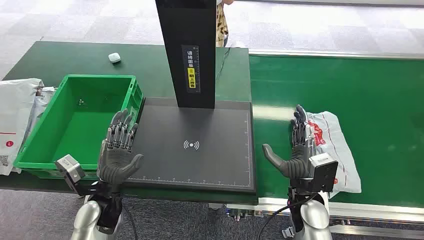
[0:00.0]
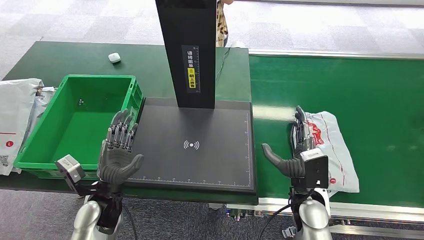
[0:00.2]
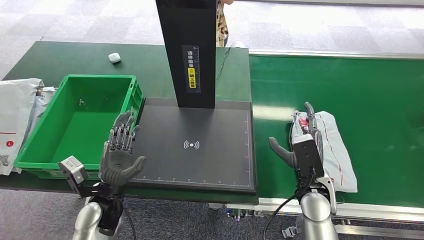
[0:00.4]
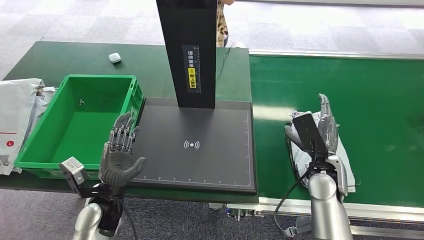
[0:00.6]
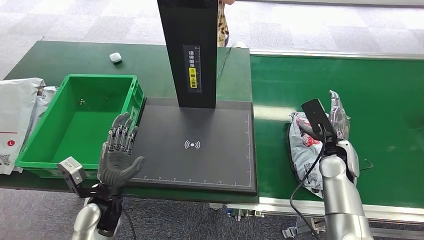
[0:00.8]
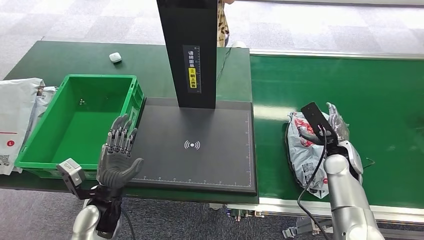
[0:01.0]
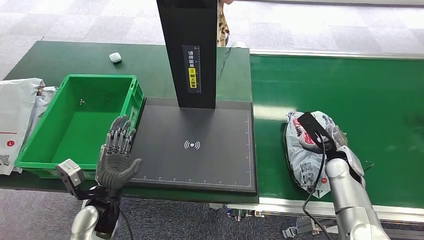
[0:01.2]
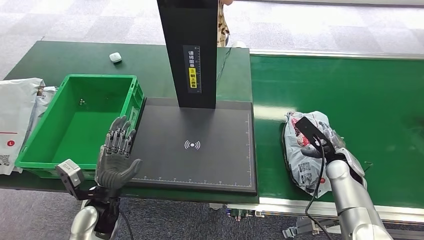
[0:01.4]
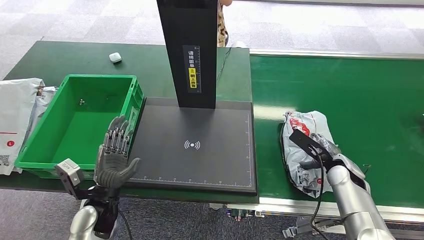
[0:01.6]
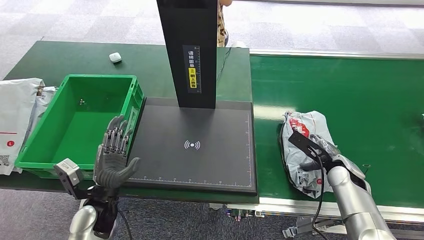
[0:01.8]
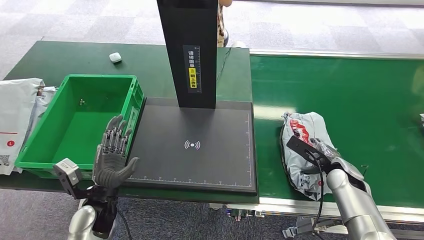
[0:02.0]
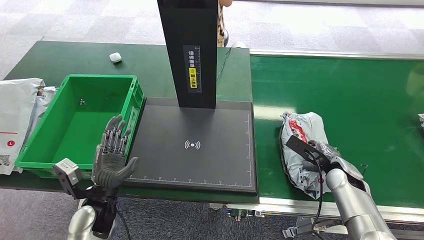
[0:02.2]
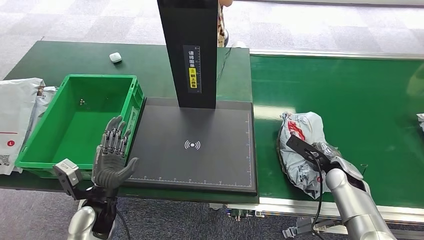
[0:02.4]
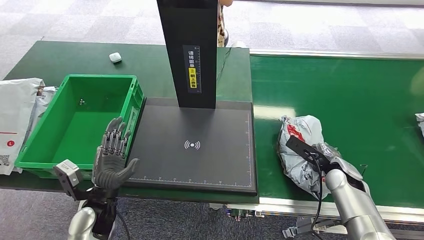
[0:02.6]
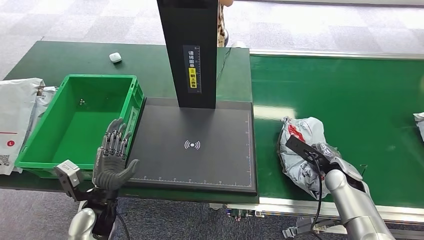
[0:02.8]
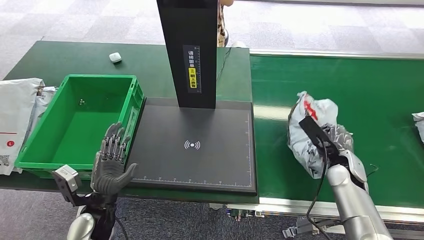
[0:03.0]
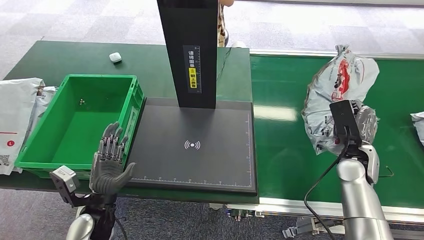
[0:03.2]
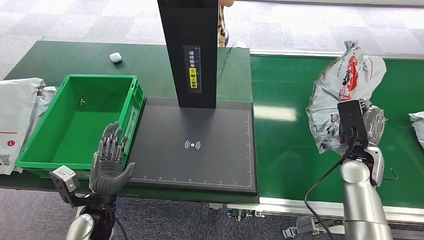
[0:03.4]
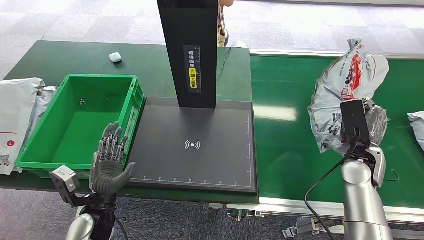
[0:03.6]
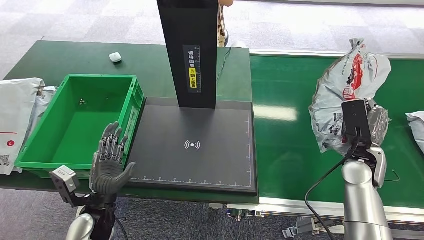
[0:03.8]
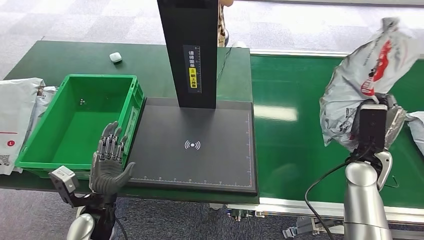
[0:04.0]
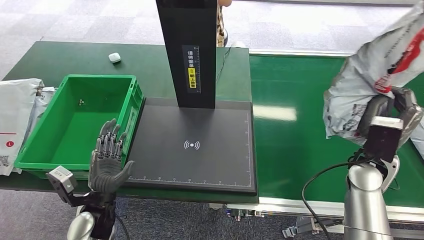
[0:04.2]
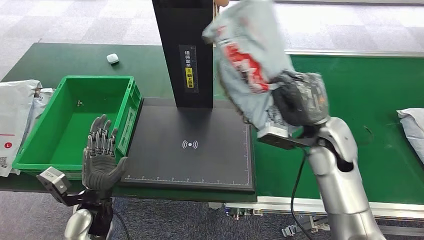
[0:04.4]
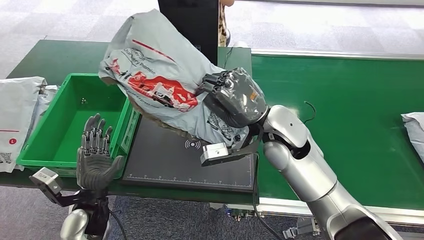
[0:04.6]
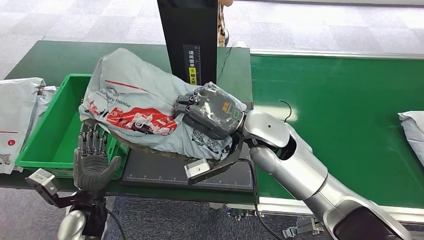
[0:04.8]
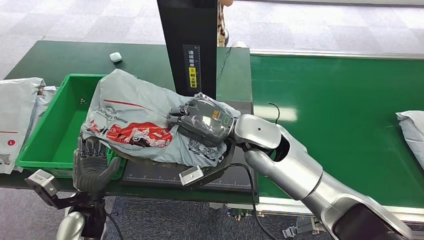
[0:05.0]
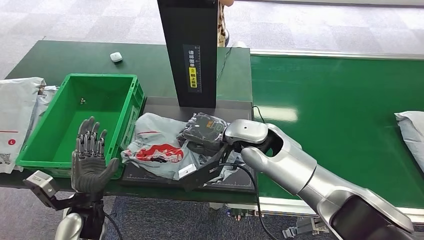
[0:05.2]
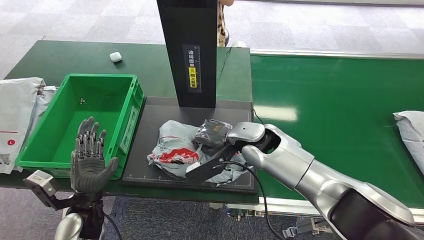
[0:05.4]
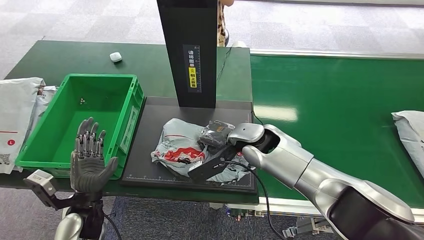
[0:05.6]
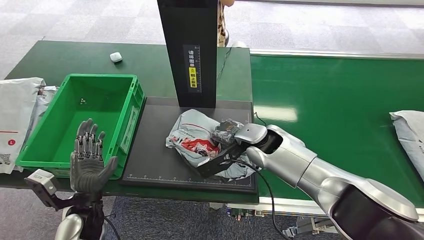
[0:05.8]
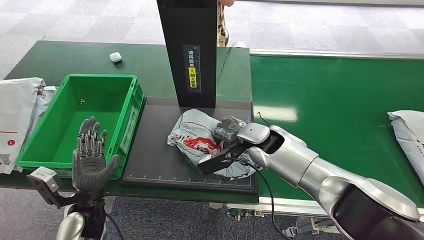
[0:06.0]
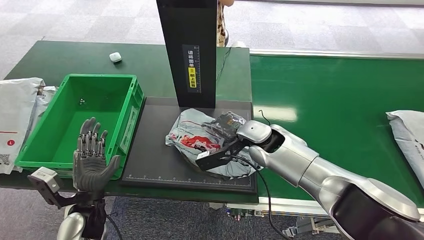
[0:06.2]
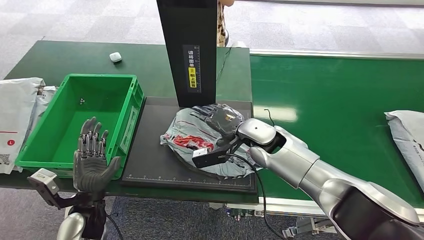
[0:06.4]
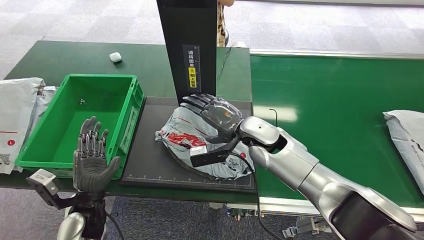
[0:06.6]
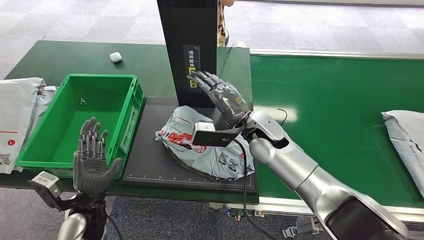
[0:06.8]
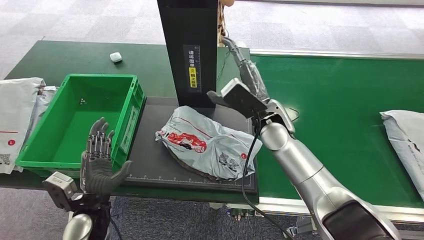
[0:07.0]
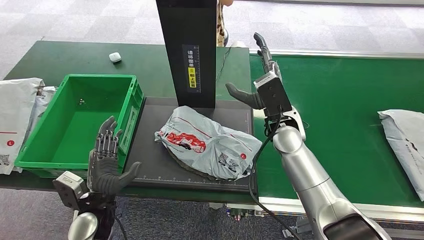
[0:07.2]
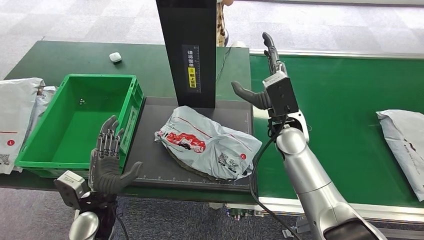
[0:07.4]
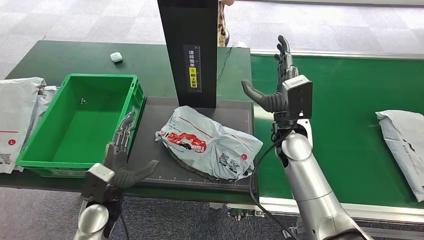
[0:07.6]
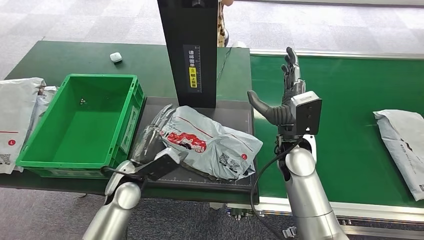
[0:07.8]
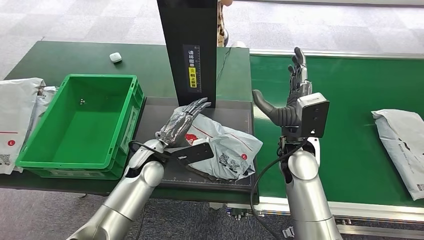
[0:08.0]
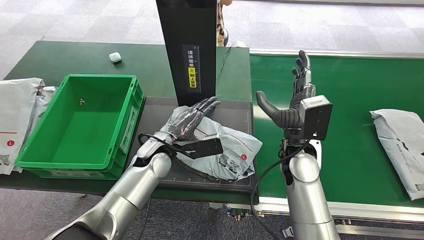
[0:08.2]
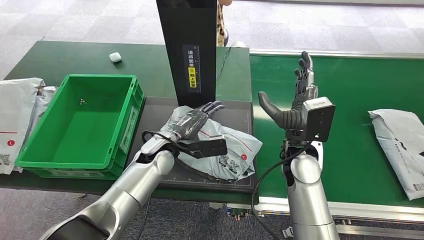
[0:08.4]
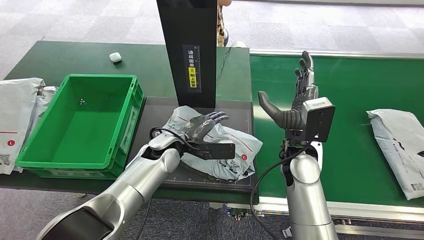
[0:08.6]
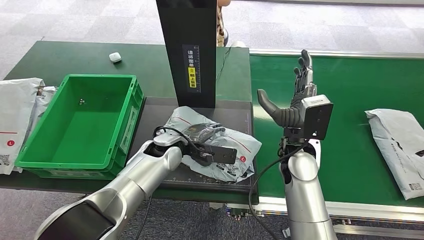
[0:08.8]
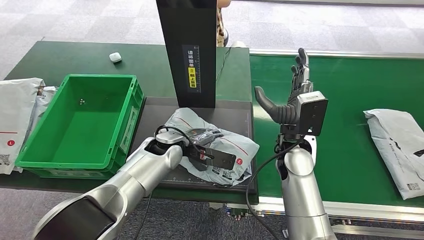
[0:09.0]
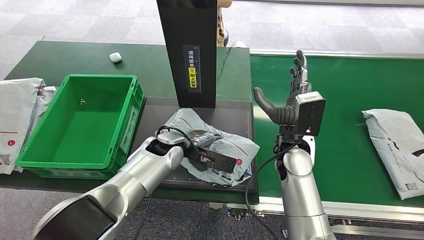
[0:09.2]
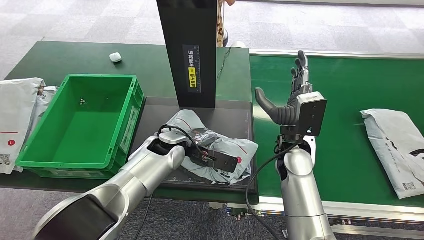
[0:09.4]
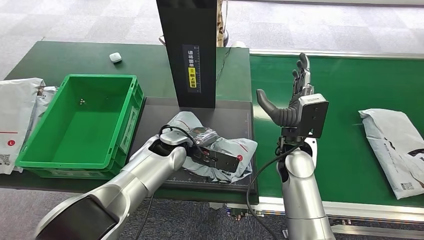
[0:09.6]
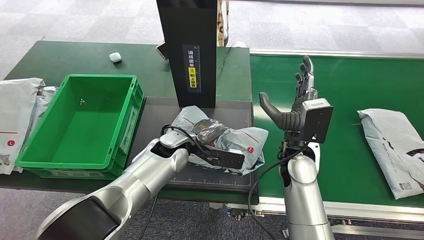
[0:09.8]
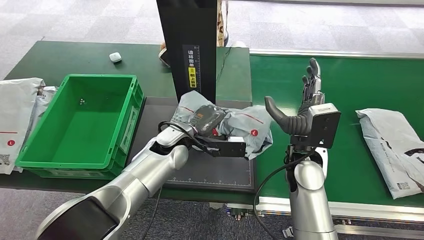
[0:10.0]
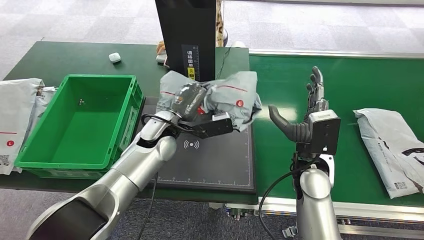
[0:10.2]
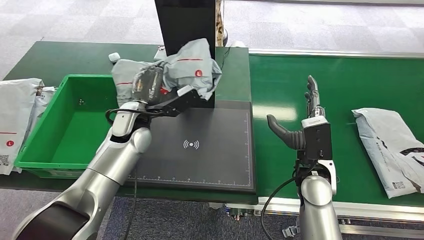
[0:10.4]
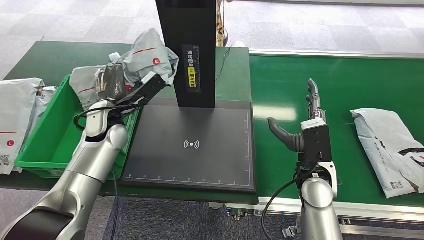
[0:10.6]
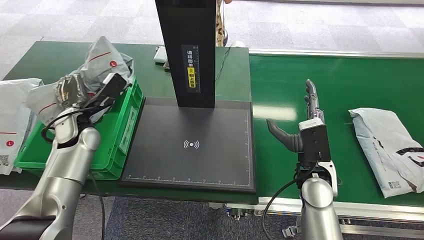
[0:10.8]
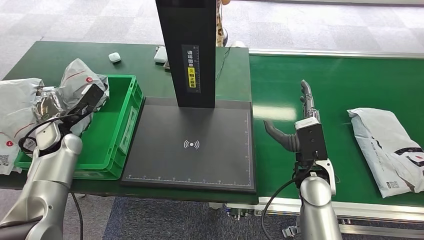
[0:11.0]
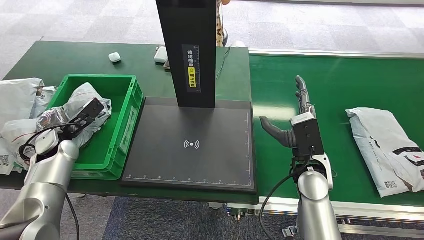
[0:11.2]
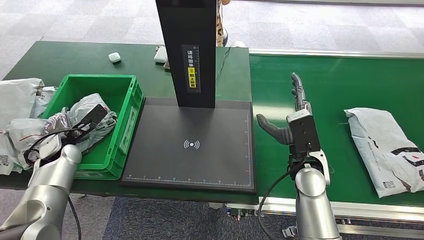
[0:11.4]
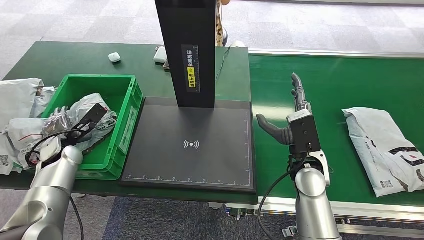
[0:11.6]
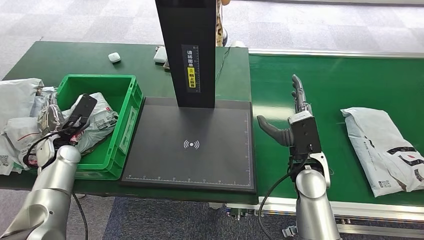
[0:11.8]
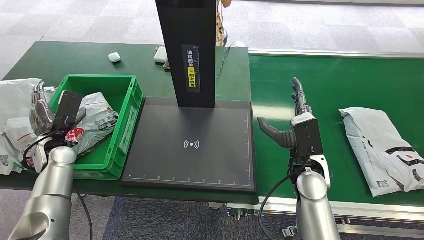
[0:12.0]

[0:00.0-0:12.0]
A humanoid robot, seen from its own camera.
Step, 0:00.0 to 0:04.0: Pick up the package from the conveyor belt.
Step, 0:04.2 to 0:07.0: Place the package onto the inbound machine.
Step, 0:07.2 to 0:10.4: Pick up the package from the inbound machine.
0:01.6 to 0:03.0: There are only small adjustments of the hands.

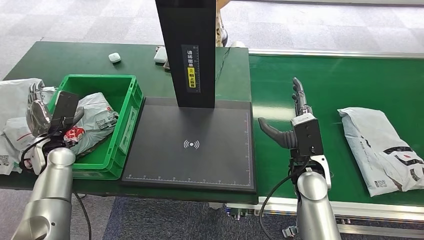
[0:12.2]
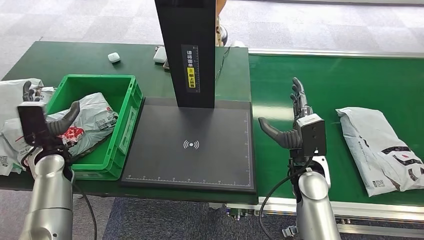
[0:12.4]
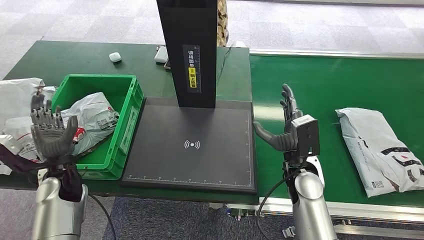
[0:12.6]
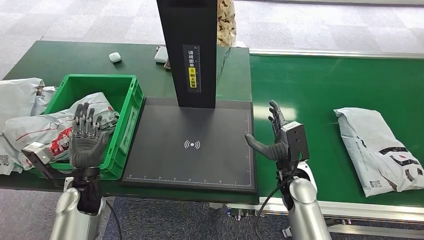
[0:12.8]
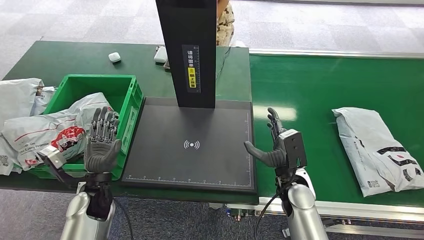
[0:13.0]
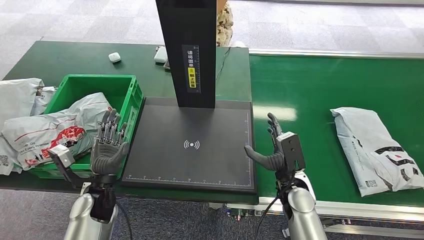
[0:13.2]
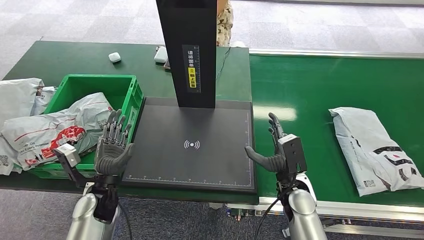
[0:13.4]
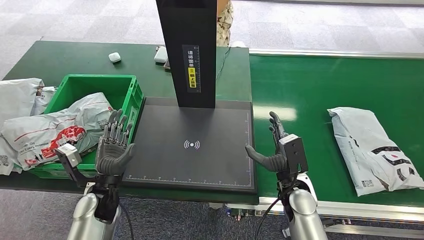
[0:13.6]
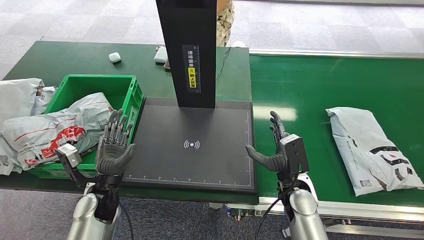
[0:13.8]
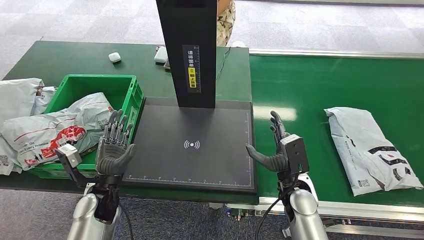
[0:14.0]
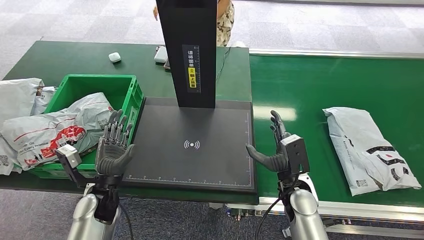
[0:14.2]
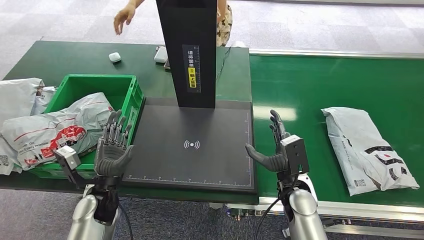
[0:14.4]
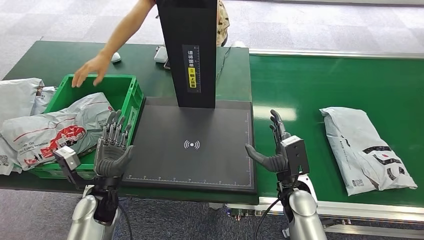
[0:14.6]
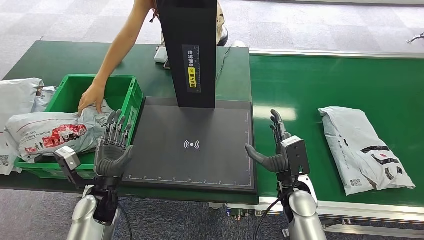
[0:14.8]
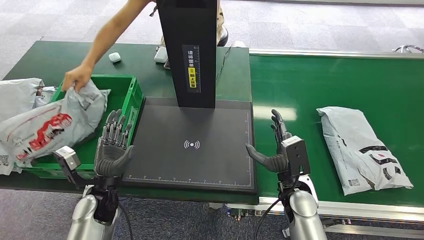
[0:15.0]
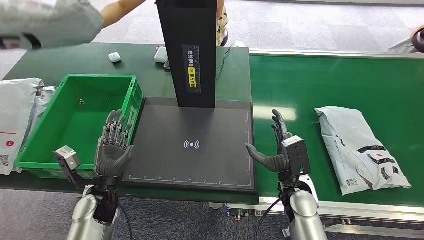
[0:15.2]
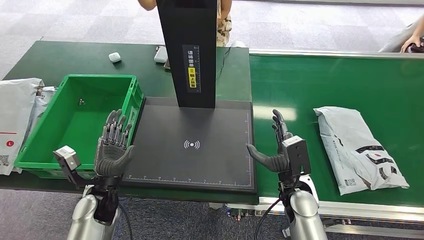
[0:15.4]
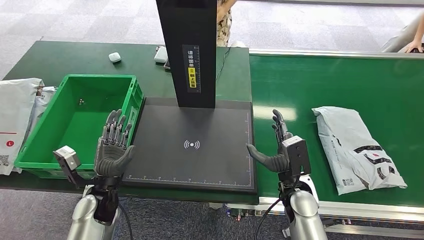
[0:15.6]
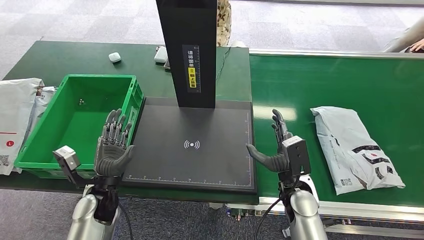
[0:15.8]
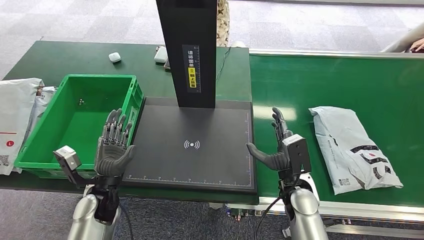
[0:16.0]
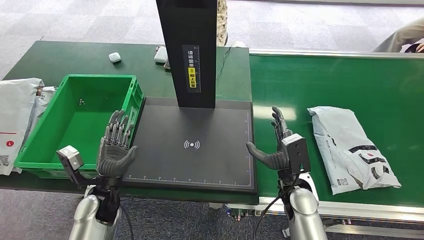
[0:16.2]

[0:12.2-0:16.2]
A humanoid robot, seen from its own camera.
Step, 0:12.2 to 0:16.2: Place the package into the parcel locker.
0:12.2 to 0:13.6: The right hand moves downward, roughly 5 cm. The left hand moves to the right and backward, some 20 cm.
0:13.6 to 0:16.2: The two hands keep their place.

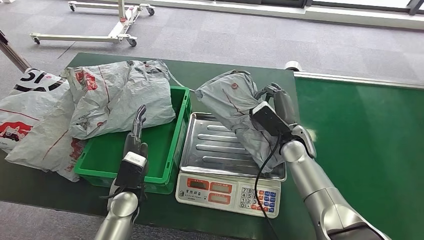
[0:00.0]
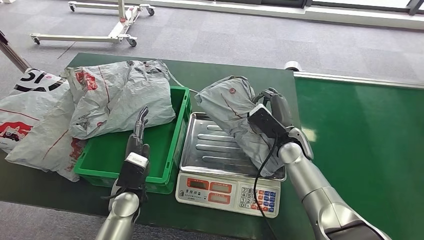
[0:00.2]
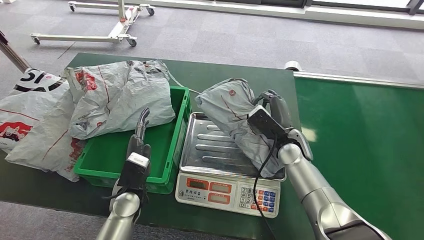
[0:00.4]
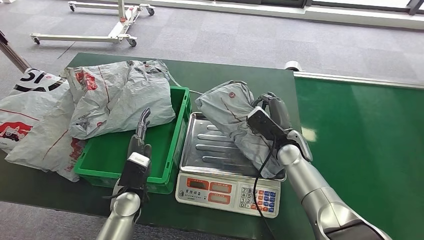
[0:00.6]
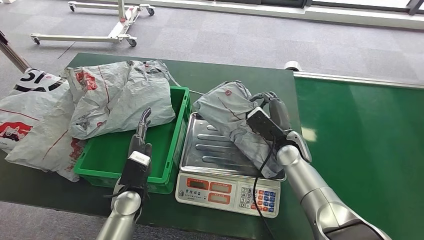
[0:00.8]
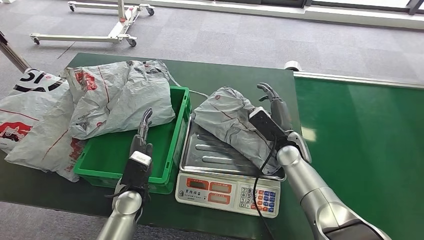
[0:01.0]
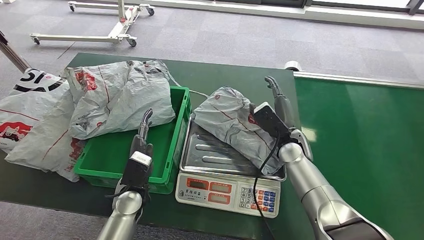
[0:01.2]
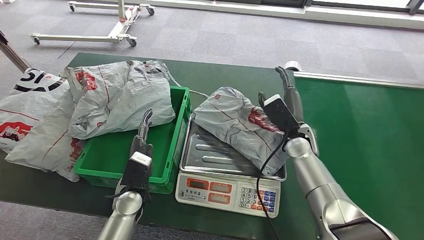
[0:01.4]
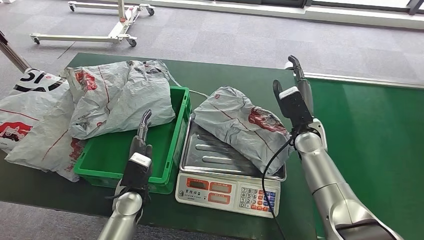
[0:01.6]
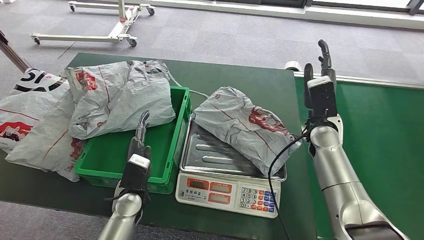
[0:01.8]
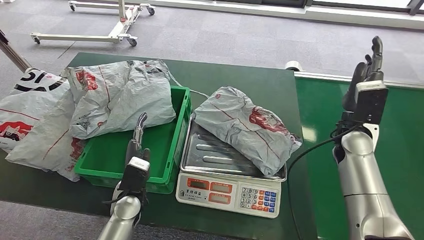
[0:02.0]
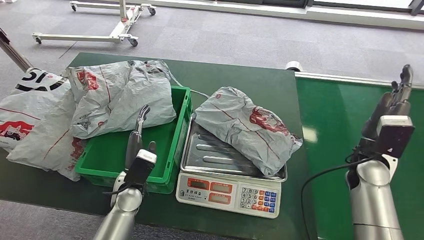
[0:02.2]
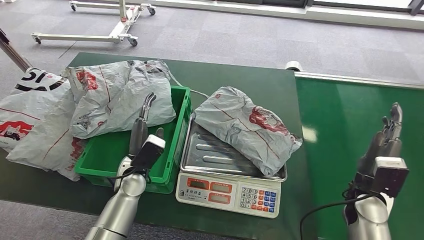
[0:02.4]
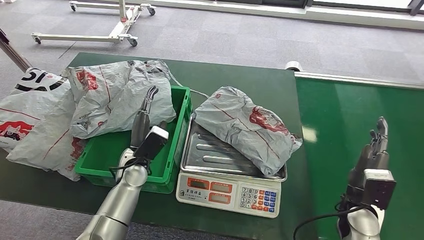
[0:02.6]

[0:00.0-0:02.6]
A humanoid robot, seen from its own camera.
0:00.0 to 0:01.2: The hands move only a little.
0:01.2 to 0:02.6: The left hand is displaced forward by roughly 5 cm; the right hand moves backward and to the right, some 20 cm.
